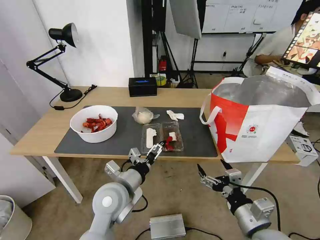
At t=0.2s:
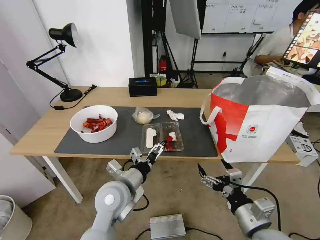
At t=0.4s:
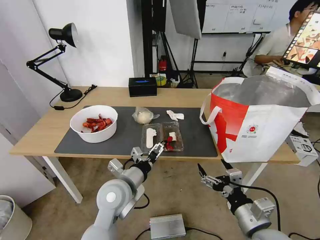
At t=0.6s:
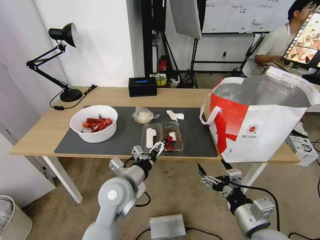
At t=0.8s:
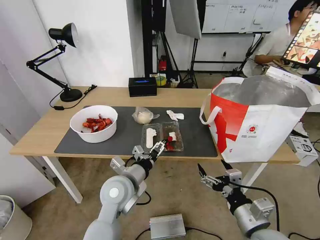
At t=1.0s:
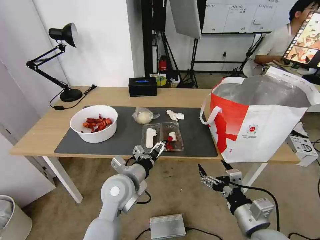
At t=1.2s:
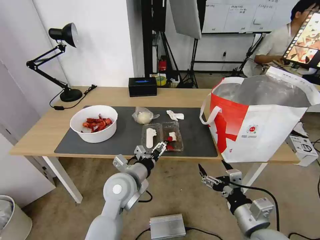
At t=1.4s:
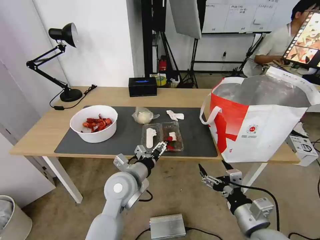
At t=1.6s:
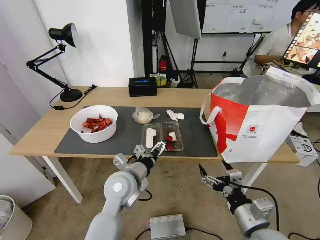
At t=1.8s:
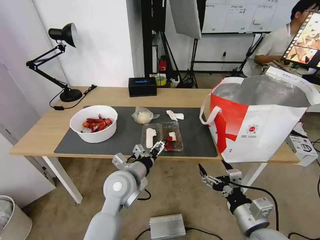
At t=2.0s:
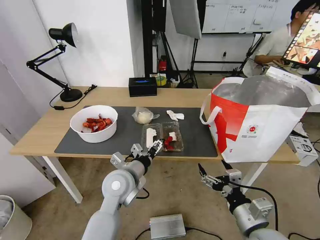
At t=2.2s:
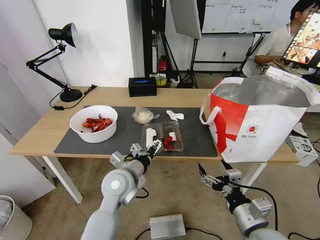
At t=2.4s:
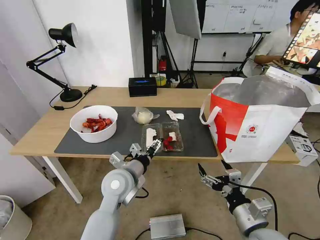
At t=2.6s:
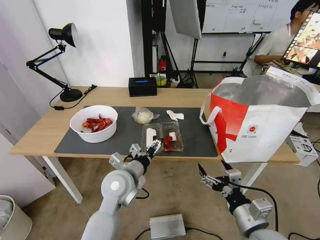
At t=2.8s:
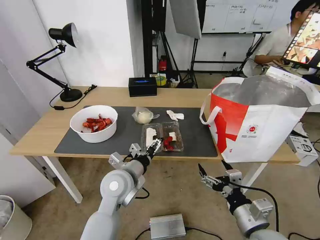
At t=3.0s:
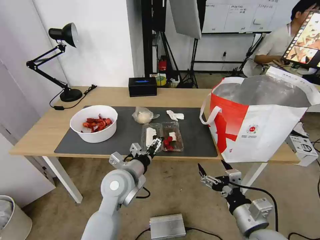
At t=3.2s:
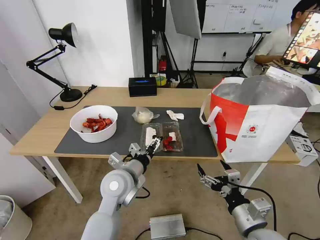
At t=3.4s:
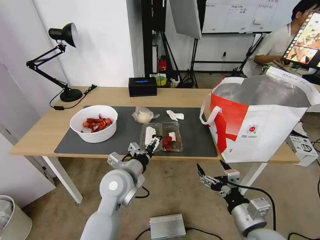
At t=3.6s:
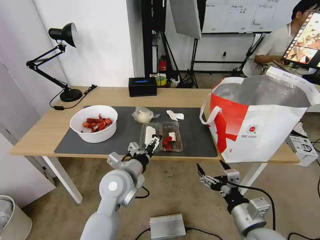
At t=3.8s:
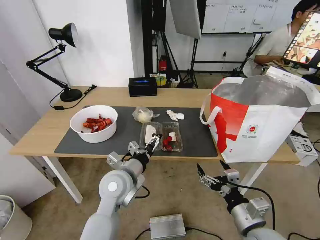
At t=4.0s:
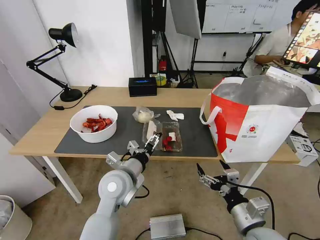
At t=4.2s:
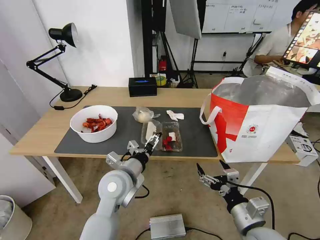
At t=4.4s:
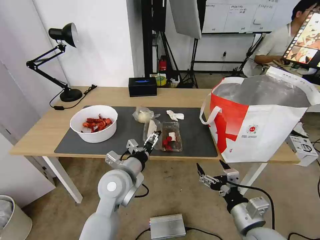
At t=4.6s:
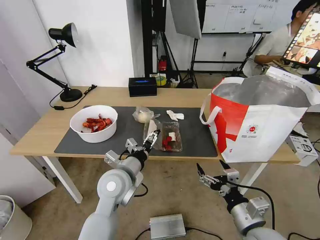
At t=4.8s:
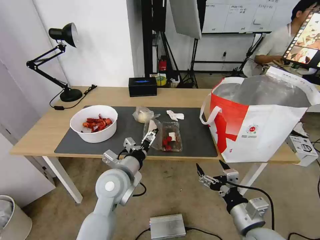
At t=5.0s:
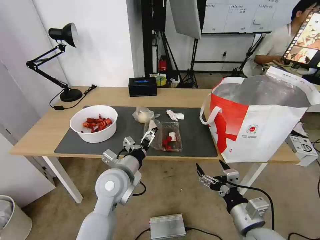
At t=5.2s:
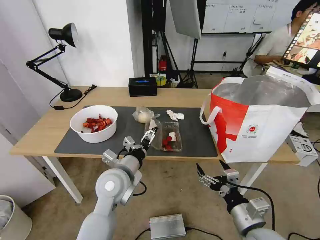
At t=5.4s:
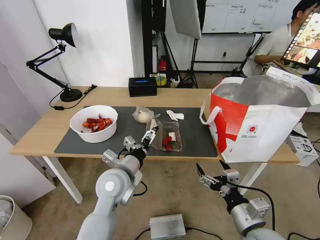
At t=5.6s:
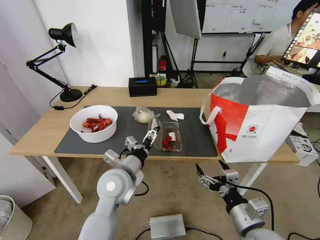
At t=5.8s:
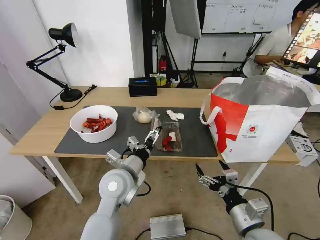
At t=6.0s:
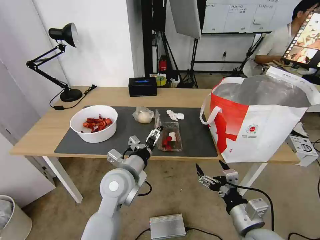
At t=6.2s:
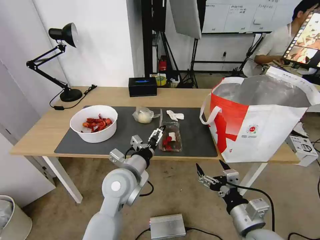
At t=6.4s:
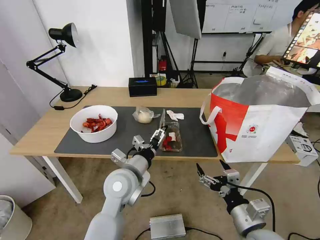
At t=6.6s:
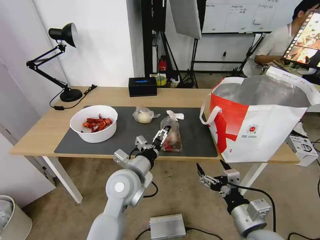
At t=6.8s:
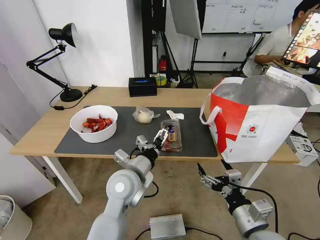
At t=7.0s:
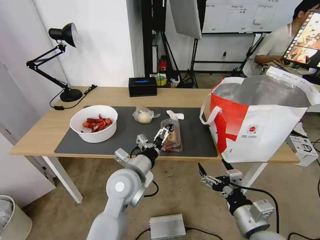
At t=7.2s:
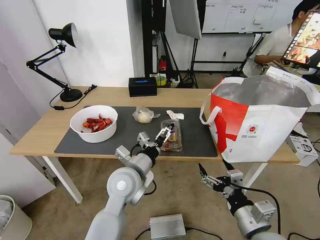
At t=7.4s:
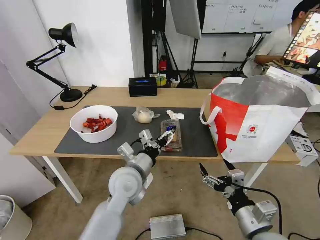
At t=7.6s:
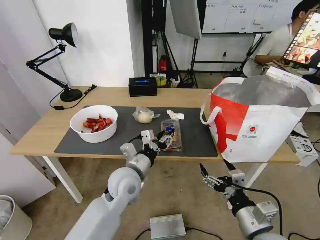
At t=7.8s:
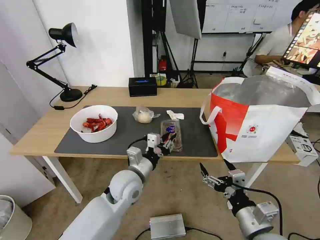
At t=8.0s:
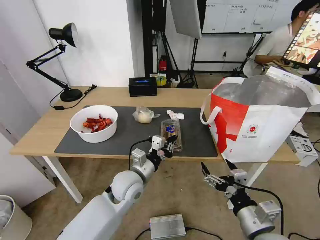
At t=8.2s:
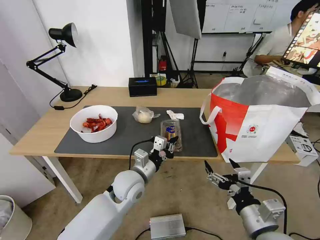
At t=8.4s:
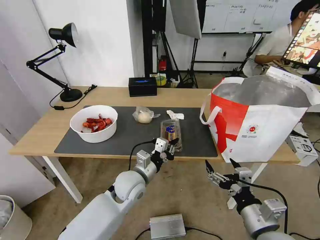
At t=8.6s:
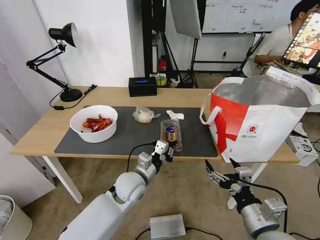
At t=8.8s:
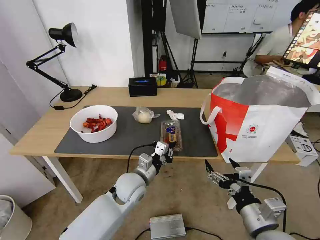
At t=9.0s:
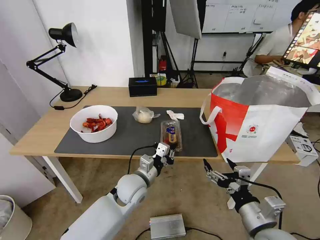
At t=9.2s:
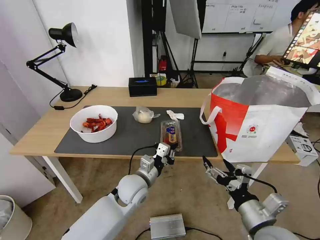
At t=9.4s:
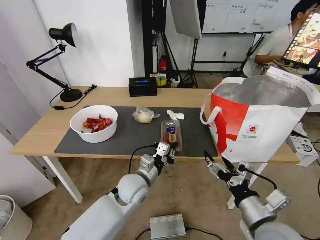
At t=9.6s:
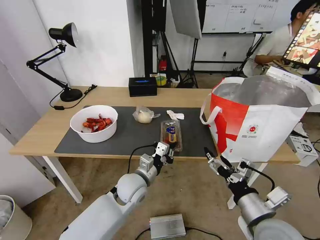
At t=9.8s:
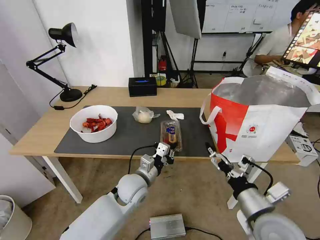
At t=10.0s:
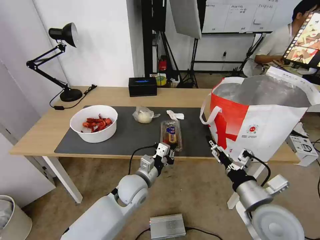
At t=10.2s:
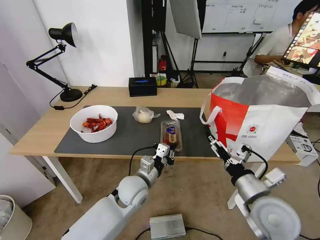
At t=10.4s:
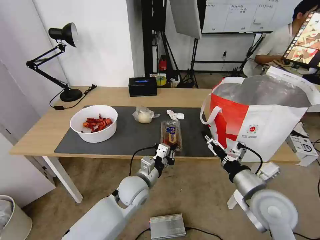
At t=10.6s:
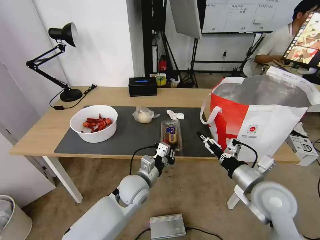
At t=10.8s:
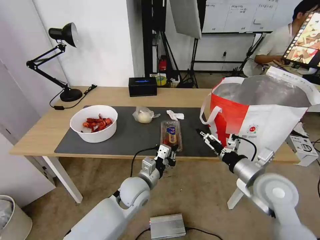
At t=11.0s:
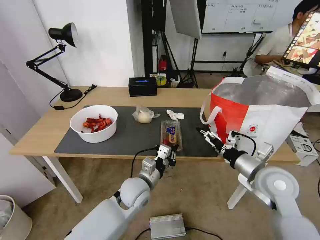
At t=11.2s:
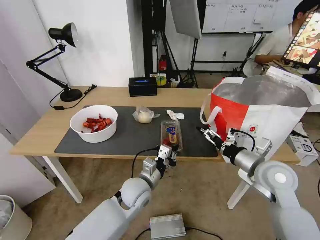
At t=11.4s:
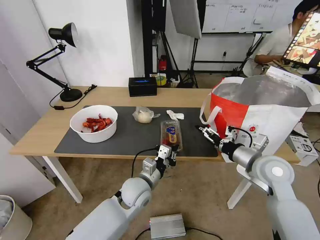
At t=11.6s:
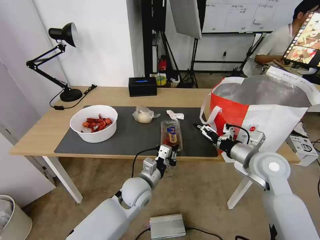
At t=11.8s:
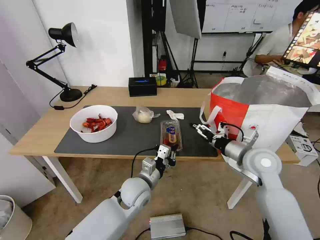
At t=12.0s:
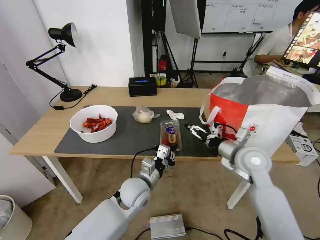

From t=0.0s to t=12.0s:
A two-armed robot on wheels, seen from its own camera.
Task of the whole recording: Pick up the trash from the table and place it into the takeout bag.
From t=0.0s to t=1.6s: The grippers move only a little.
From t=1.6s to t=3.0s: Both grippers stay about where they are.
From t=3.0s to t=4.4s: The grippers move only a little.
From t=4.4s to t=6.0s: Both grippers stay about where they are.
From t=6.0s to t=7.6s: The left gripper closes its fingers.
From t=7.6s to t=9.0s: The left gripper shifts roughly 5 cm downward, and closes.
From t=9.0s to t=10.4s: The right gripper goes roughly 10 cm forward.
From t=10.4s to t=12.0s: The right gripper shifts about 15 cm forward.

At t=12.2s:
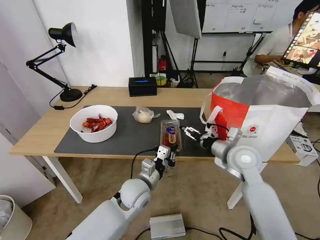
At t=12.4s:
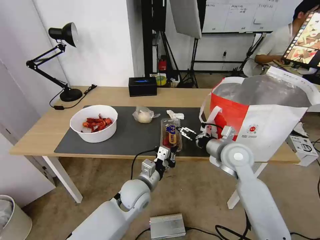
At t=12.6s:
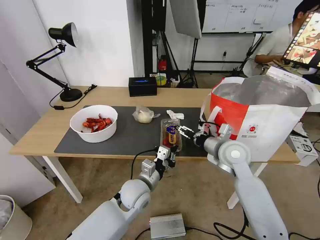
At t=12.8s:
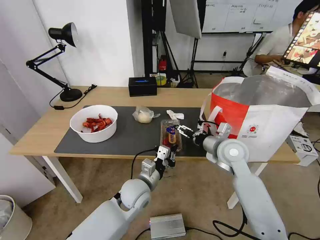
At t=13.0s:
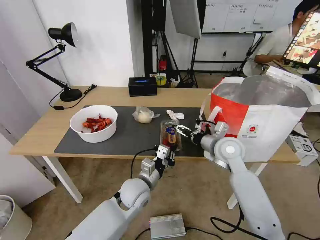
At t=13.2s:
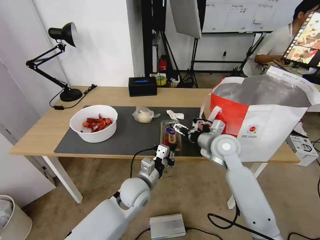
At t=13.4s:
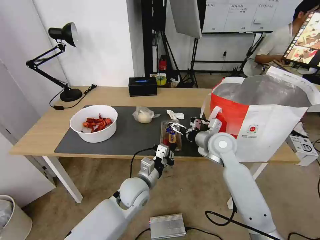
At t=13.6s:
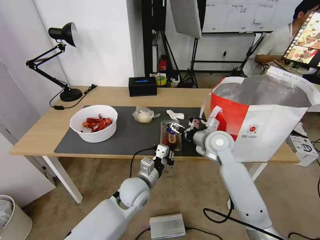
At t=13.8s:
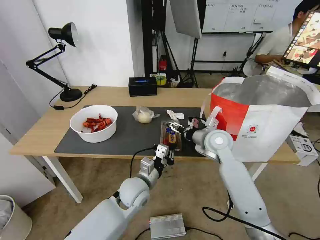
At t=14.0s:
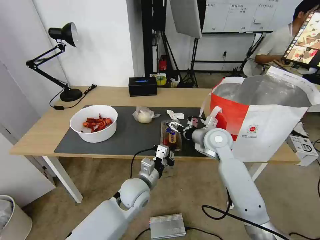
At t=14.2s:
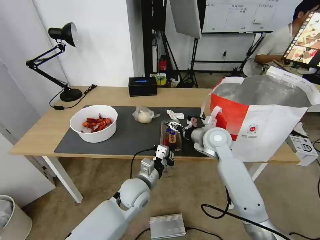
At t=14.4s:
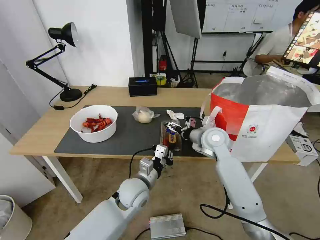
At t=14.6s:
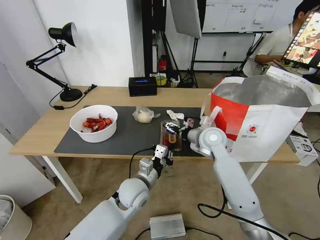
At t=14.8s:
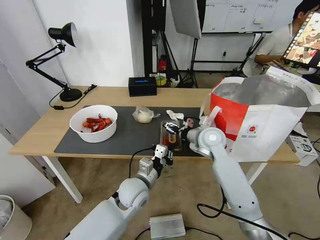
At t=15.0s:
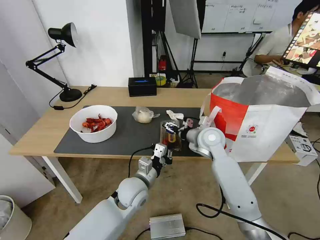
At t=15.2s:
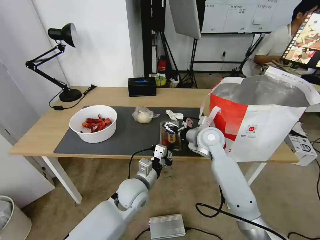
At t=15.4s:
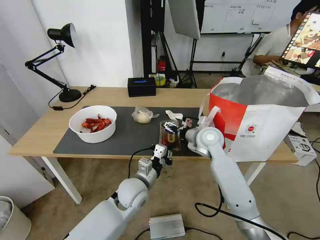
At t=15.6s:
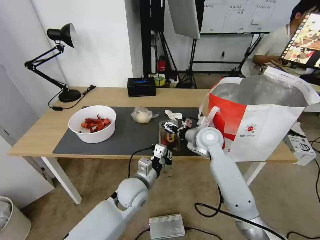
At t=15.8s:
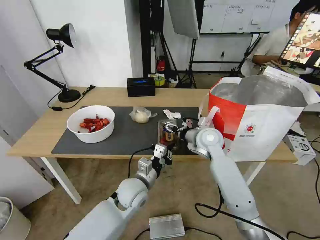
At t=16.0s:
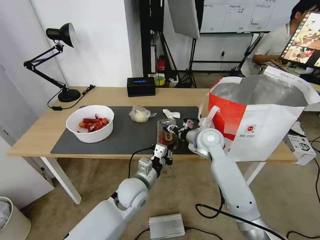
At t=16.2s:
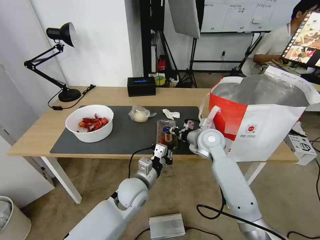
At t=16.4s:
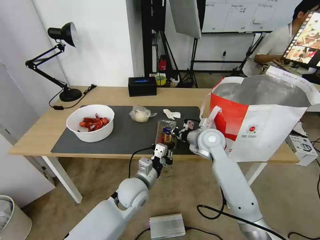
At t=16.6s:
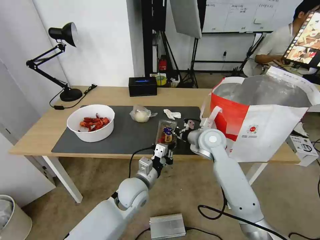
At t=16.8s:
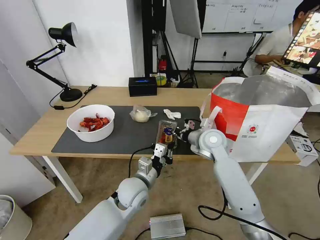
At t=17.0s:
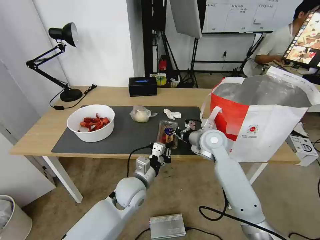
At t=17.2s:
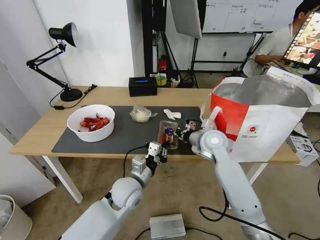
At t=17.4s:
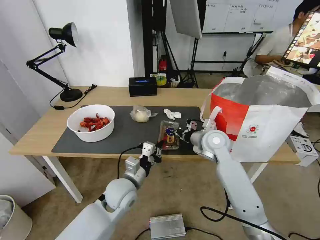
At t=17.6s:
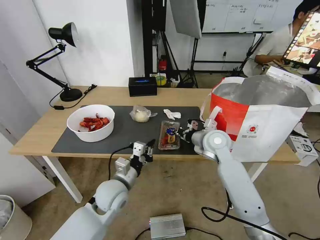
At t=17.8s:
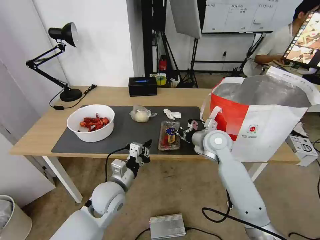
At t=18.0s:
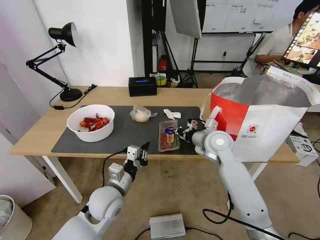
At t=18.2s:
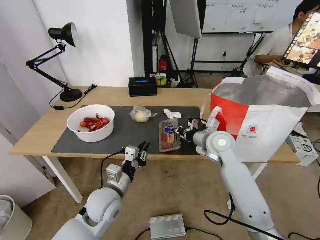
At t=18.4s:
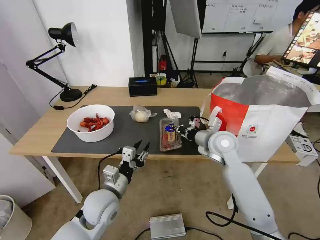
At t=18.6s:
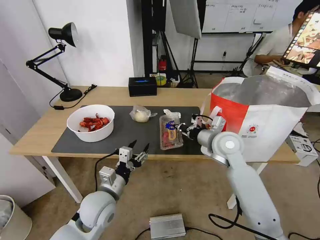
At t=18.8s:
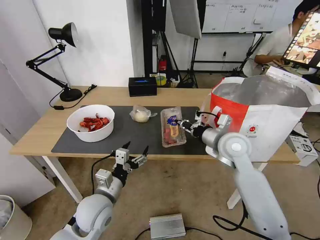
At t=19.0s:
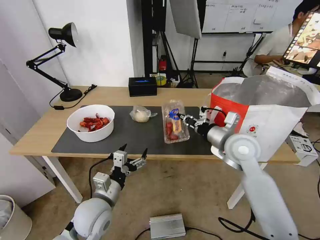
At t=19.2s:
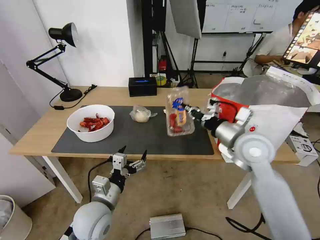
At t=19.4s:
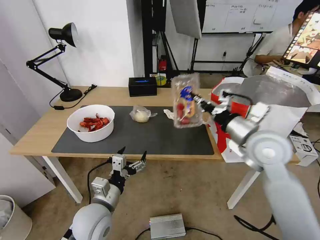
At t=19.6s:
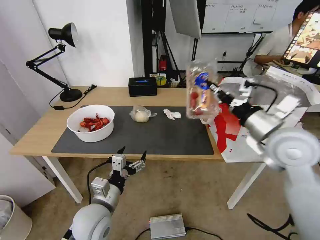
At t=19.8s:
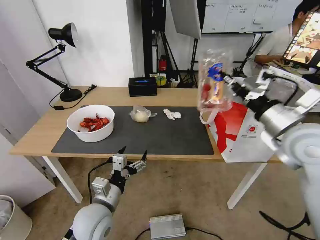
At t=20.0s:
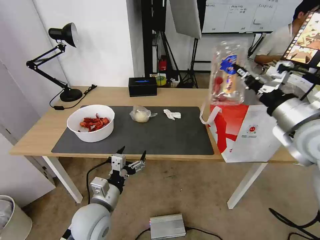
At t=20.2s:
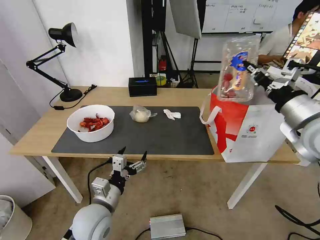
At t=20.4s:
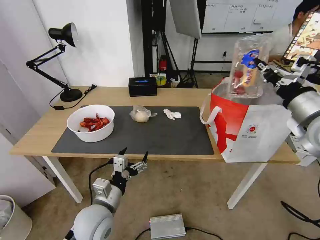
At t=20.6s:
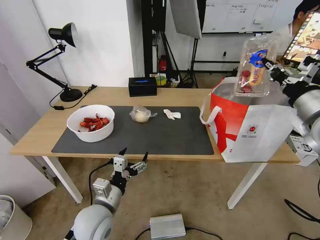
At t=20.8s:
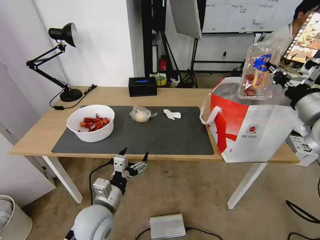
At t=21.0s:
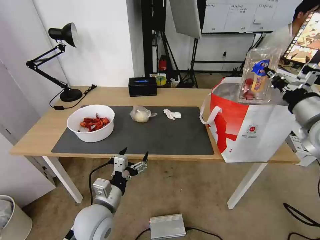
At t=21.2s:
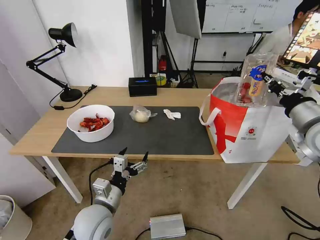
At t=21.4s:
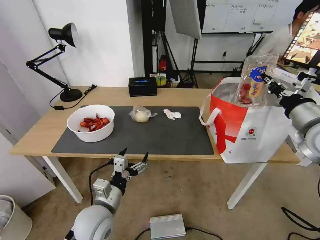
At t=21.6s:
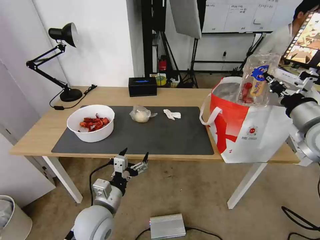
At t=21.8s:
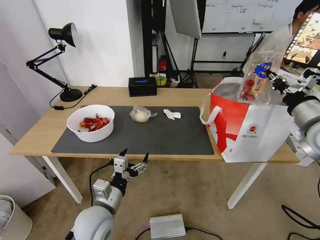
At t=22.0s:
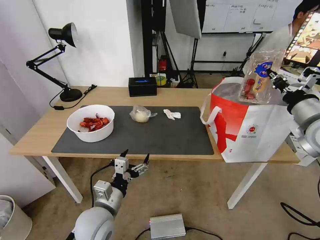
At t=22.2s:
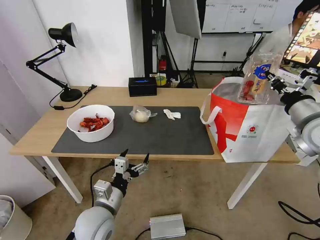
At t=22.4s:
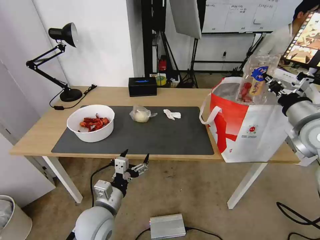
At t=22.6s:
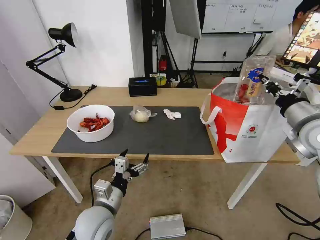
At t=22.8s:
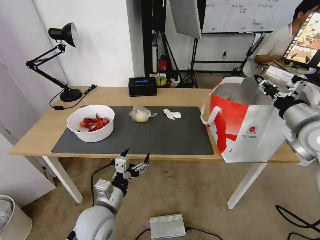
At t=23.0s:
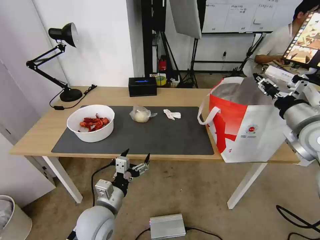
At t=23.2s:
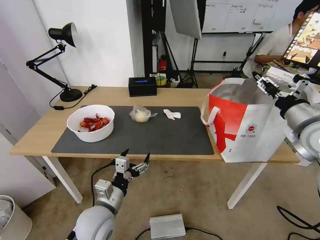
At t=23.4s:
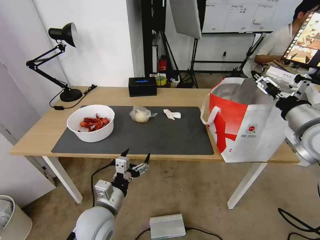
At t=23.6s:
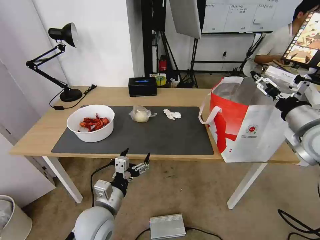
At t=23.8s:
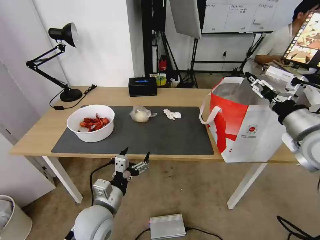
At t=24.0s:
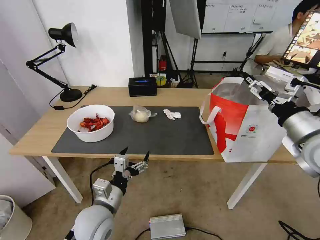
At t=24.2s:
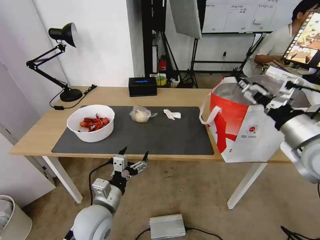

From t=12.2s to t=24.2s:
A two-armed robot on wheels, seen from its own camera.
Task of the whole recording: Pick up the trash from the table and place it into the takeout bag.
From t=12.2s to t=13.8s: The right gripper is displaced forward and to the left by about 10 cm.
From t=13.8s to t=15.2s: There are only small adjustments of the grippers.
From t=15.2s to t=16.6s: The right gripper closes.
From t=16.6s to t=18.2s: The left gripper moves to the left, approximately 10 cm.
From t=18.2s to t=19.8s: The left gripper moves roughly 5 cm, and opens up; the right gripper travels upward, to the right and backward by roughly 20 cm.
From t=19.8s to t=21.2s: The right gripper heads to the right, covering roughly 5 cm.
From t=21.2s to t=22.6s: The grippers stay close to where they were, moving slightly.
From t=22.6s to t=24.2s: The right gripper is displaced backward by some 5 cm, and opens up.
